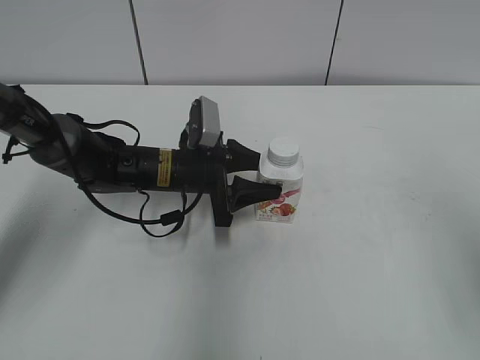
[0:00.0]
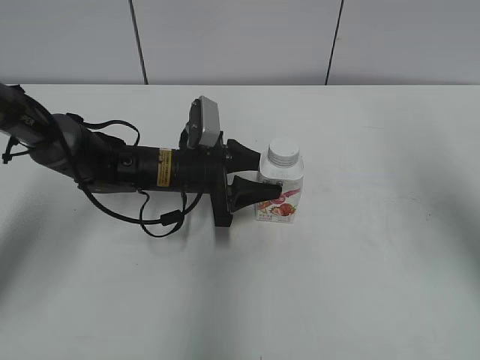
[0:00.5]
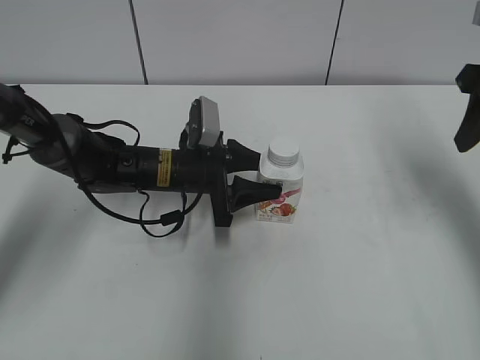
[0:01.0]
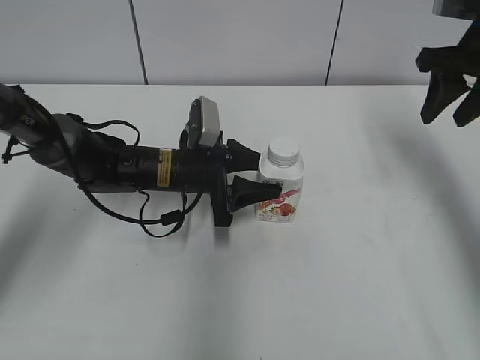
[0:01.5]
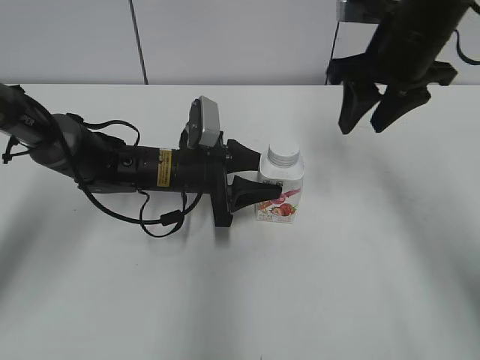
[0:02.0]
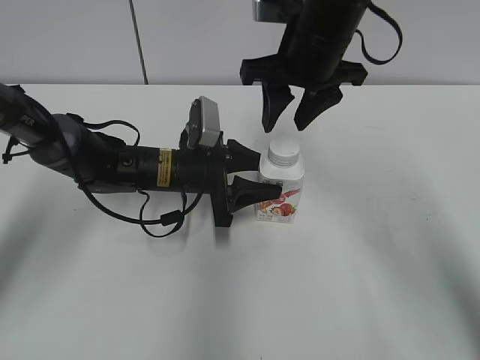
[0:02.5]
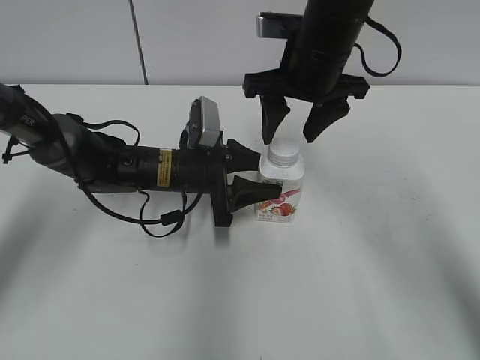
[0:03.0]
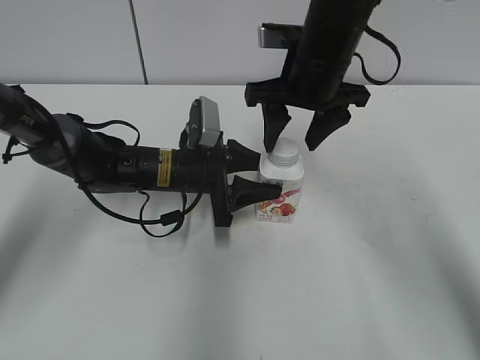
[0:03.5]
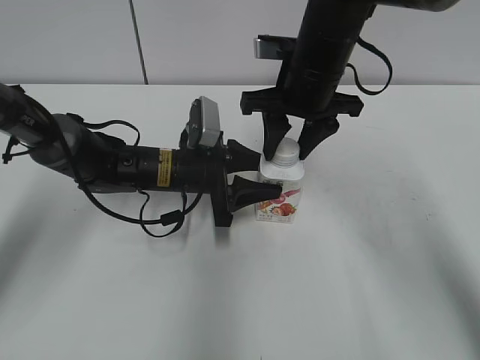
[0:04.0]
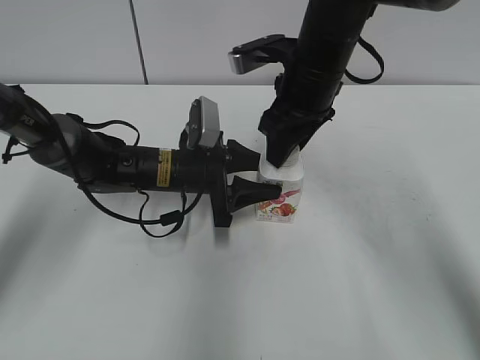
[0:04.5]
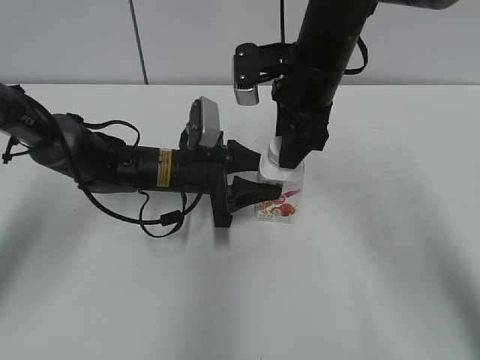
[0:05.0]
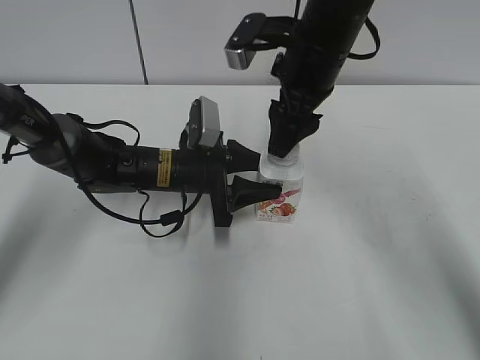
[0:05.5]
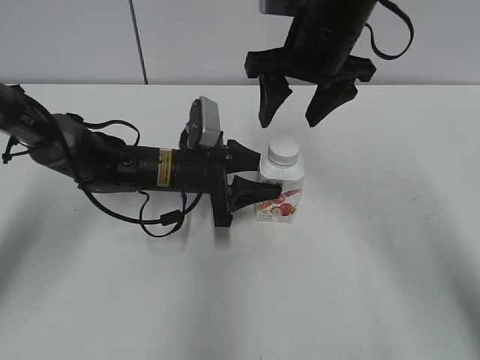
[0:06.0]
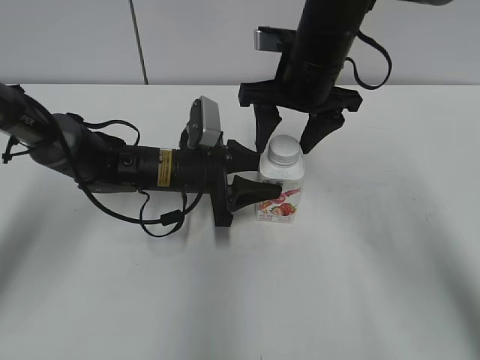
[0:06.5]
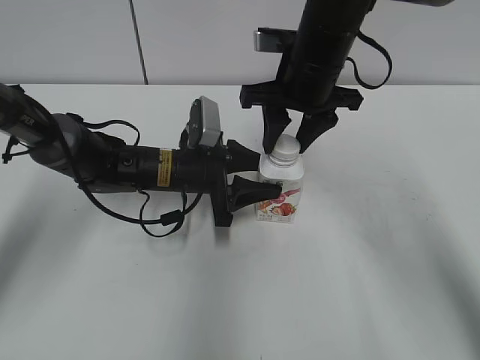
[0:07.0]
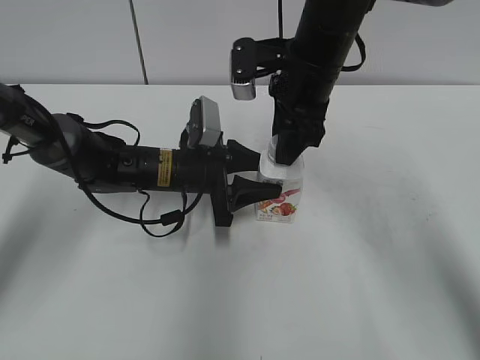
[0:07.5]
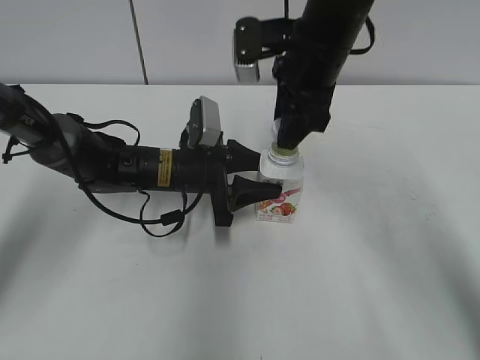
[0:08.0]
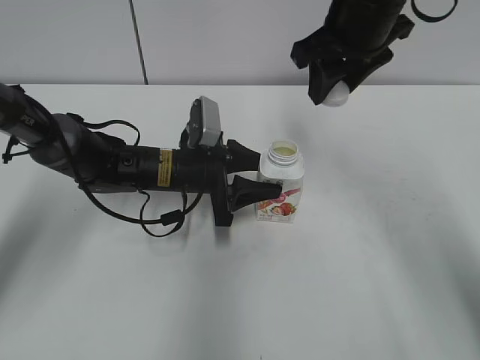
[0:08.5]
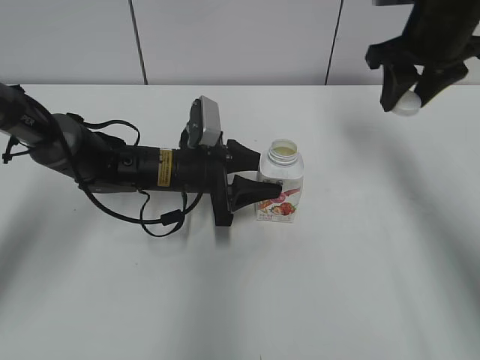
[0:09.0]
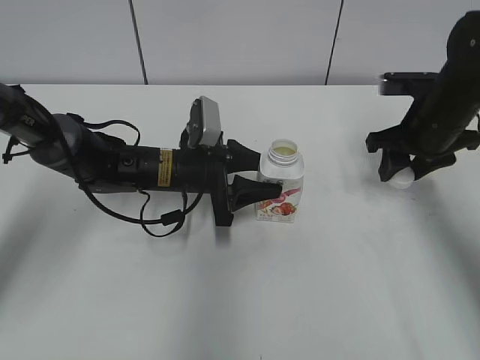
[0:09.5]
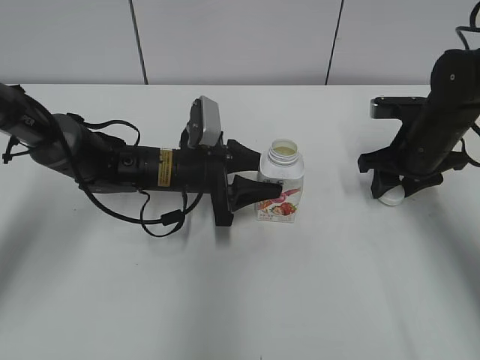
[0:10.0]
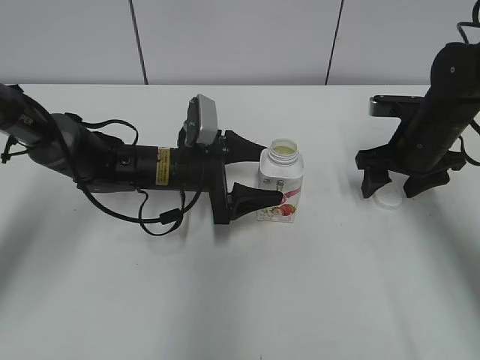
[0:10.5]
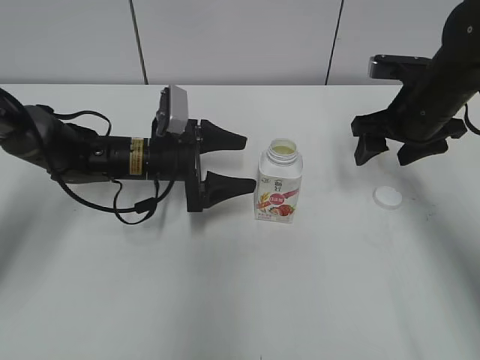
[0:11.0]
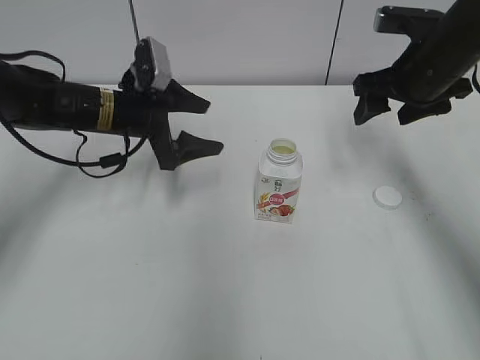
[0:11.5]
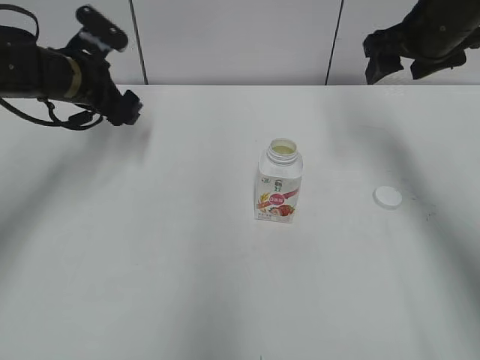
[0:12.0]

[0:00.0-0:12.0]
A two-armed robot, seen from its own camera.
Step, 0:08.0 to 0:10.0: Place the bottle cap on the right.
0:00.0 to 0:02.0: The right gripper travels forward and to the left by some 30 cm.
0:02.0 to 0:04.0: The right gripper heads to the left, covering about 10 cm, and opens and closes again.
0:04.0 to 0:06.0: The right gripper opens.
0:06.0 to 0:08.0: The right gripper closes up.
0:08.0 to 0:10.0: The right gripper travels to the right and downward by approximately 20 cm.
0:10.0 to 0:12.0: The right gripper shifts about 15 cm upward, and opens. Meanwhile the left gripper goes approximately 20 cm to the left, upward and forward, and opens its fingers.

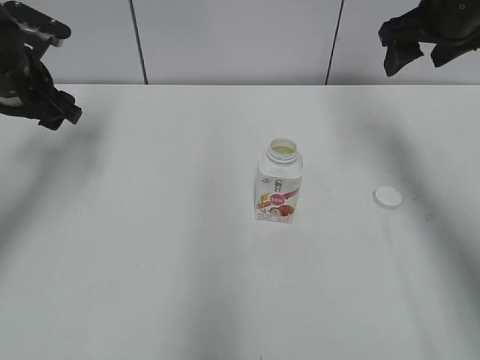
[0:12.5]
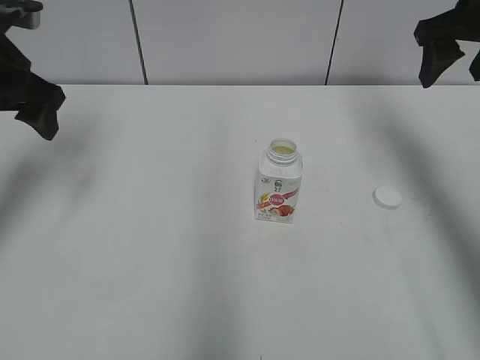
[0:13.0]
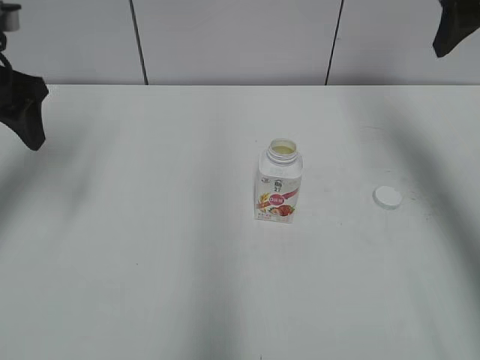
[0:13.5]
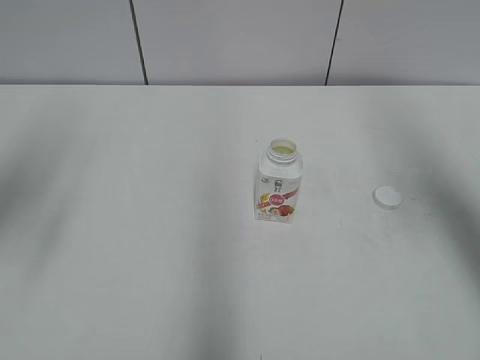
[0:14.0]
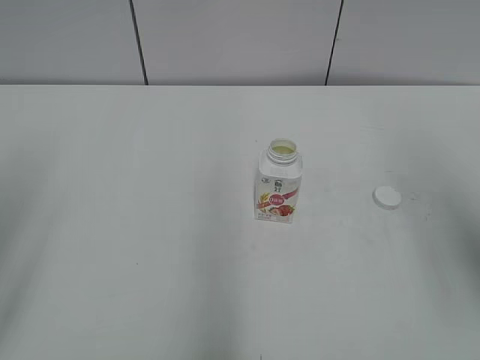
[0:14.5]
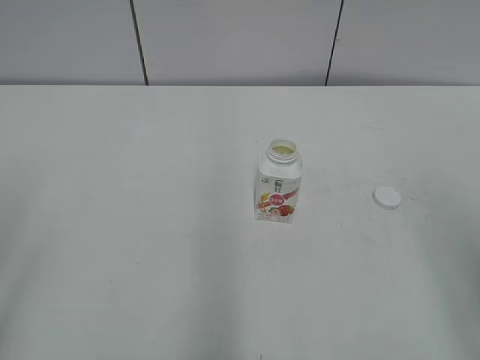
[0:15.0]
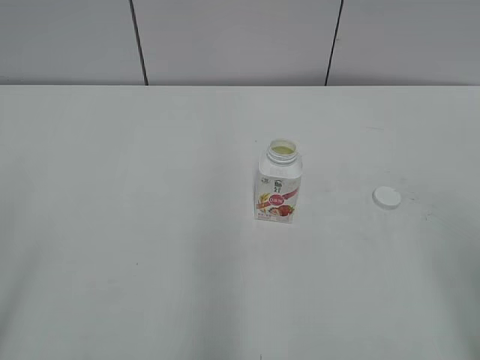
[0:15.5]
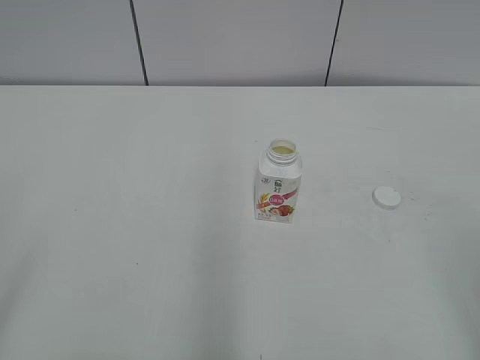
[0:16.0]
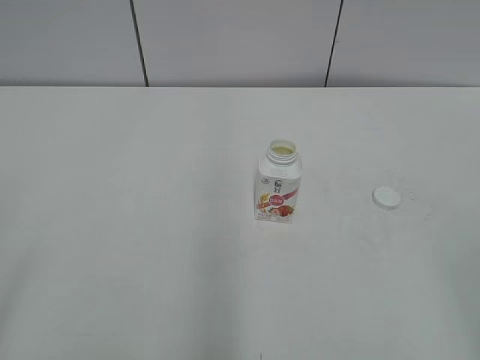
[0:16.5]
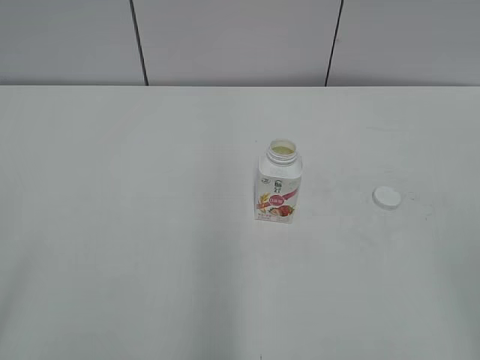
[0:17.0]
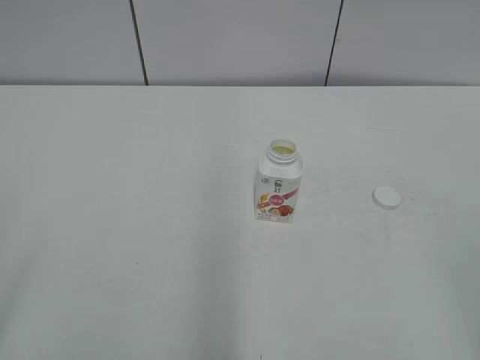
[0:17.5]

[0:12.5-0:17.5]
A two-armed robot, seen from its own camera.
0:12.5 to 0:15.0: The grippers both shift backward by roughly 30 cm.
